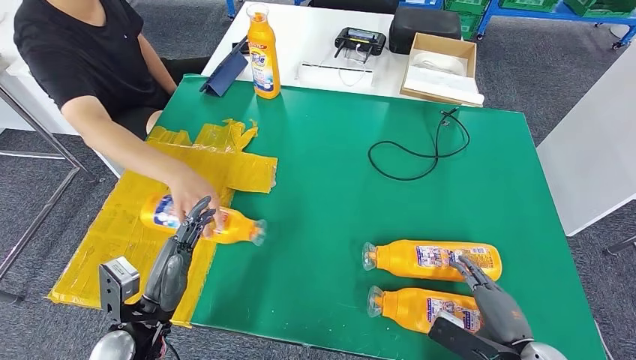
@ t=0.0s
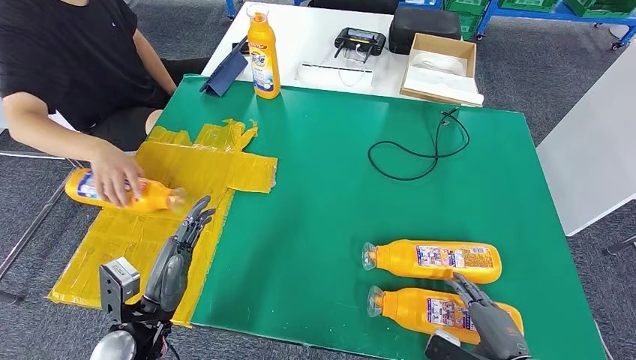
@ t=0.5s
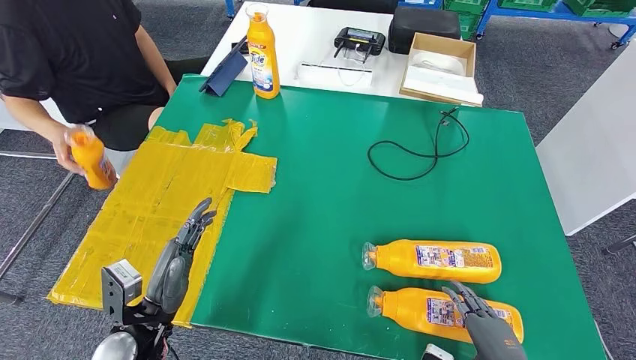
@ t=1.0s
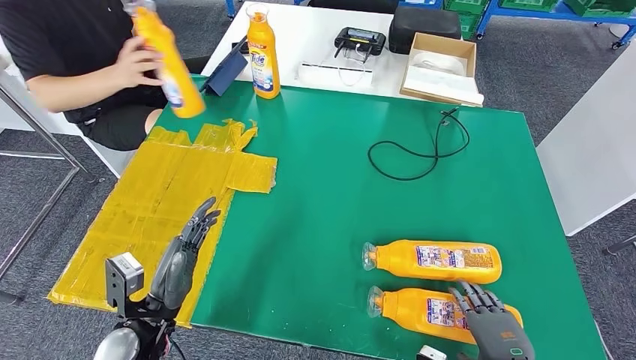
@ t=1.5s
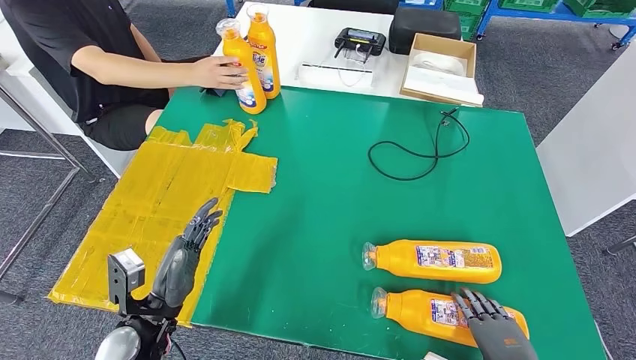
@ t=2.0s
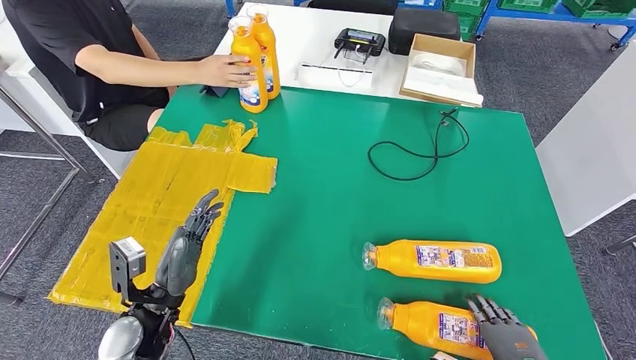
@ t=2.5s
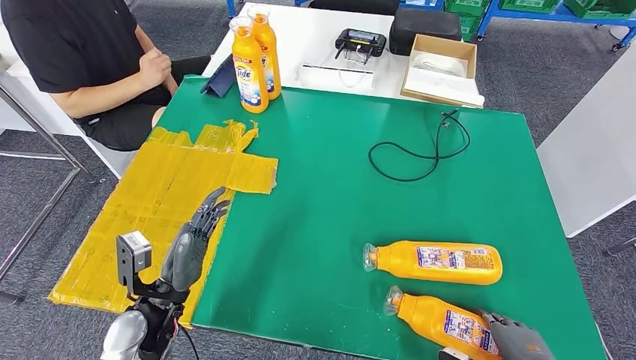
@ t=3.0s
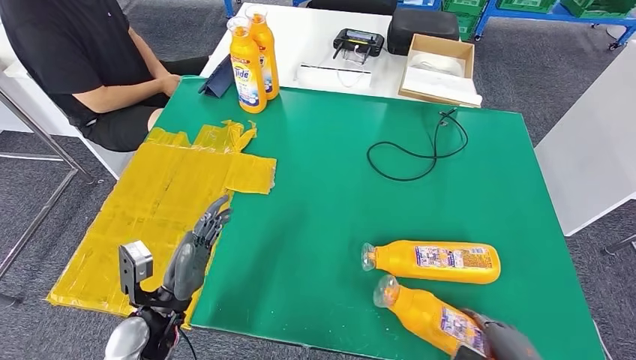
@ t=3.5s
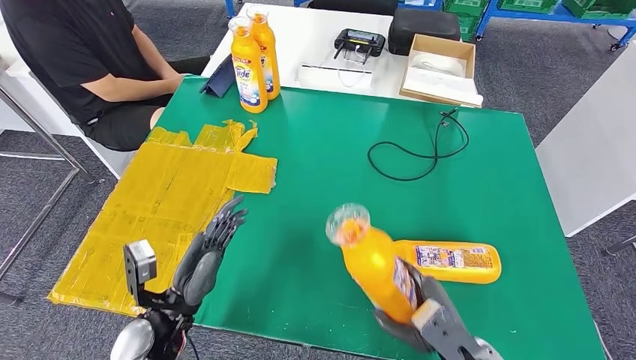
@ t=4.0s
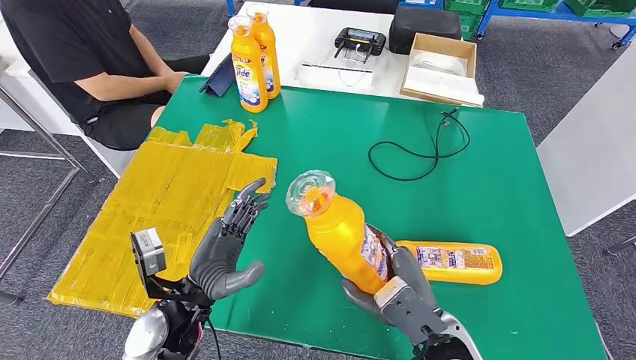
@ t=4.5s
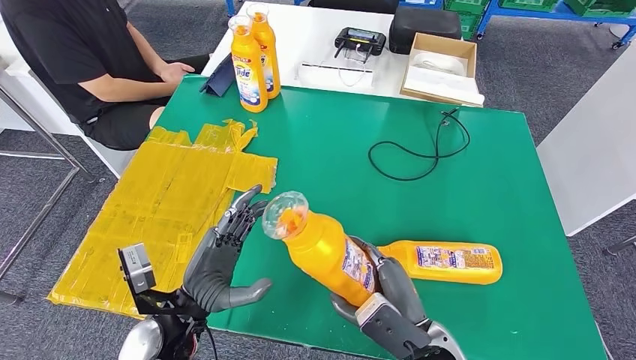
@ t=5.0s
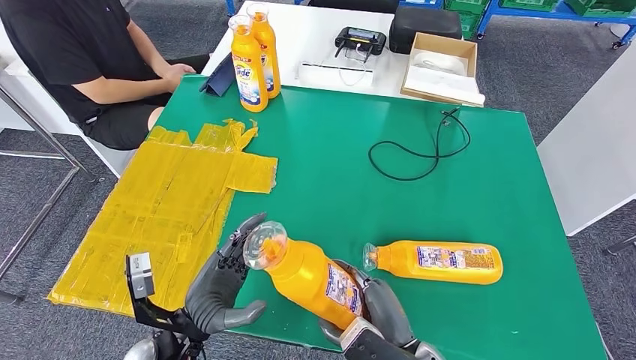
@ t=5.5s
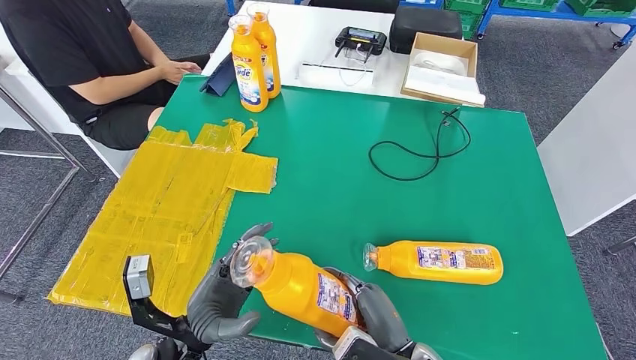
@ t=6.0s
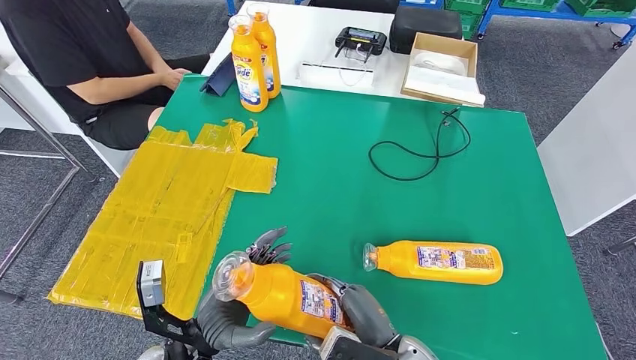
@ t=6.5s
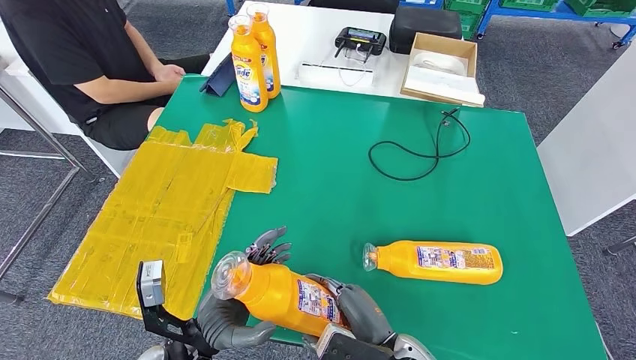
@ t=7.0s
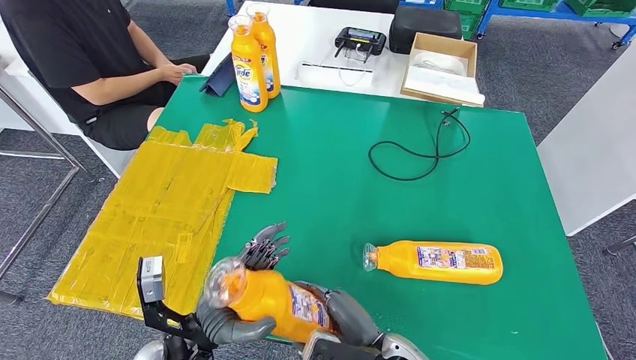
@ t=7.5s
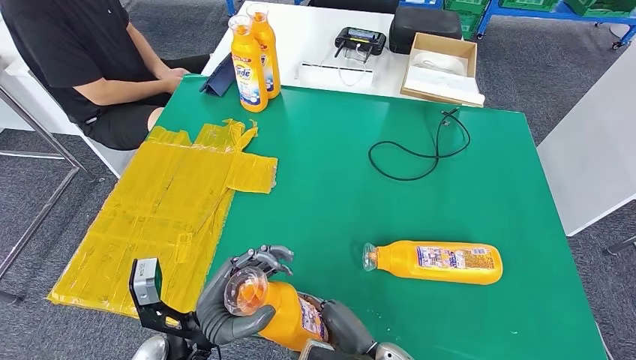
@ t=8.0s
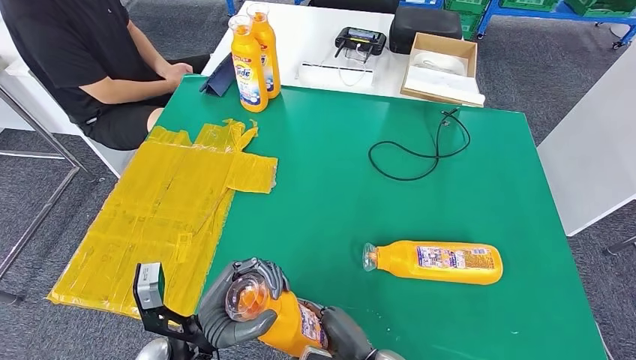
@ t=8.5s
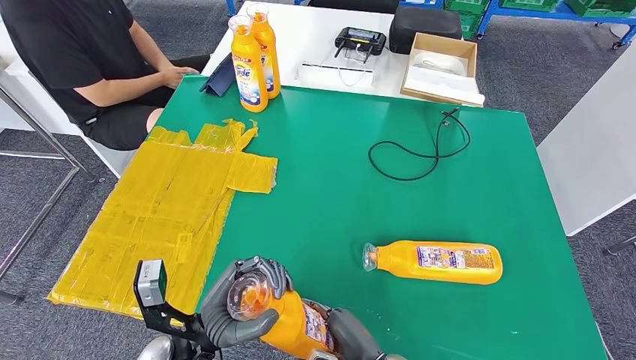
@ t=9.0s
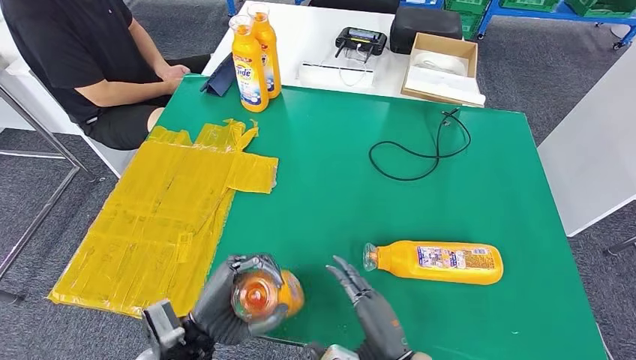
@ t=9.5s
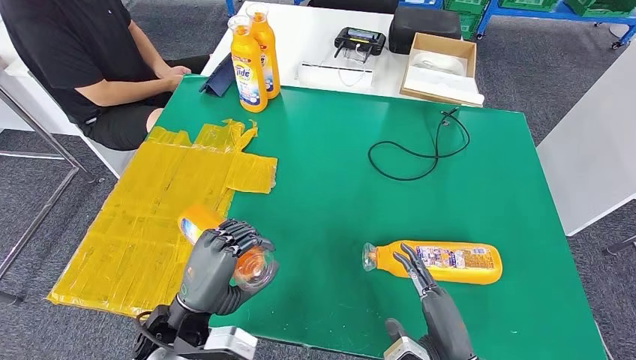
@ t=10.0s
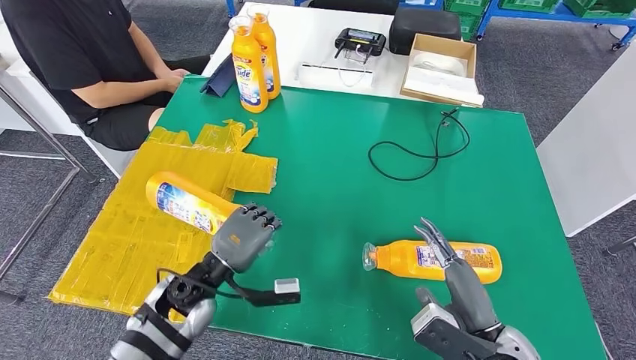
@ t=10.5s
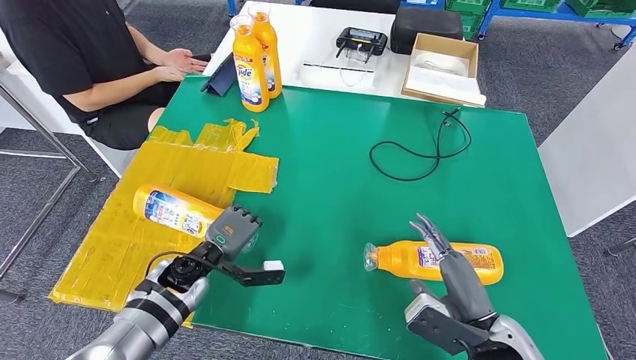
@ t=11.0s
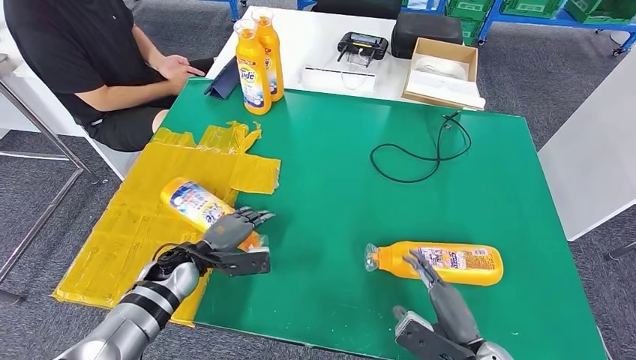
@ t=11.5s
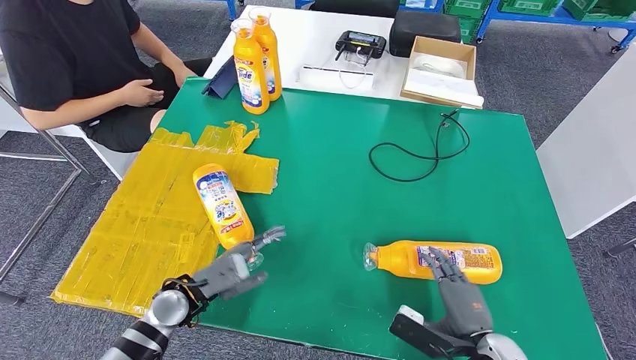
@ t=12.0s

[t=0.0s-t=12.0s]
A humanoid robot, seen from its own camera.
Step, t=0.5s to t=7.0s: Pick up the bottle from the table.
t=2.0s to t=4.0s: The right hand moves to the left, about 10 cm.
t=4.0s to t=6.0s: The right hand moves to the left, approximately 10 cm. Meanwhile the left hand changes place by about 5 cm.
t=6.0s to t=8.0s: The right hand changes place by about 5 cm.
t=8.0s to t=10.0s: The right hand is displaced to the right and upward by about 10 cm.

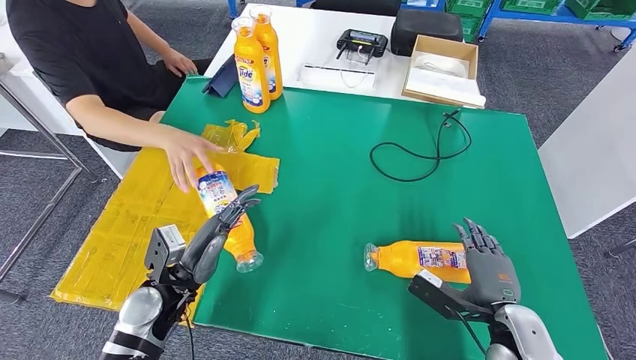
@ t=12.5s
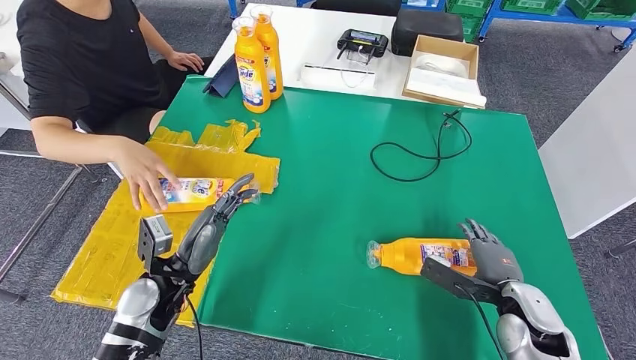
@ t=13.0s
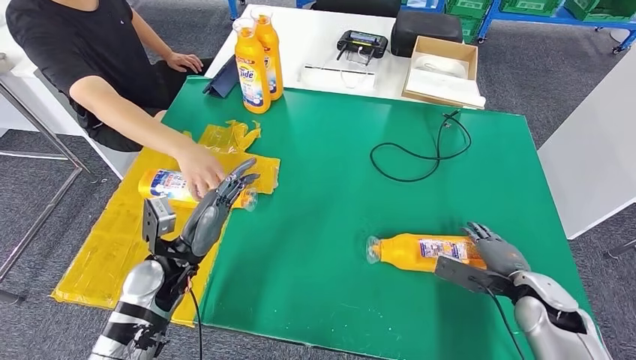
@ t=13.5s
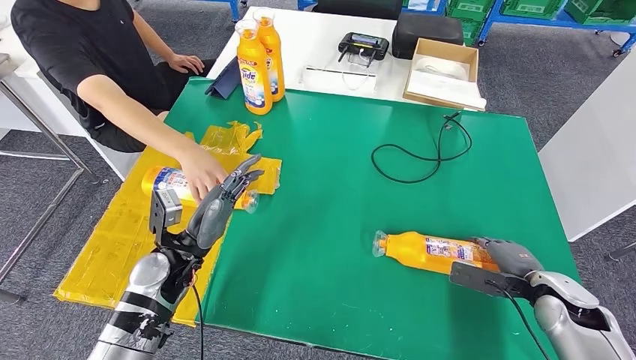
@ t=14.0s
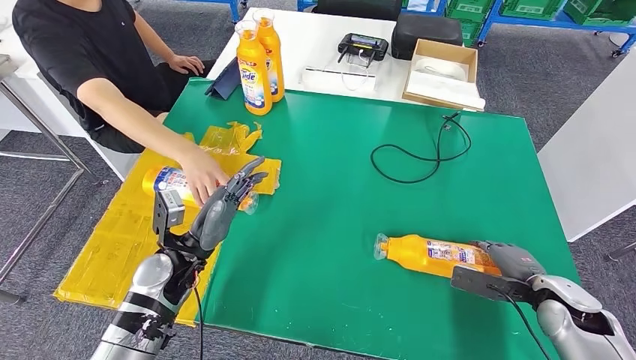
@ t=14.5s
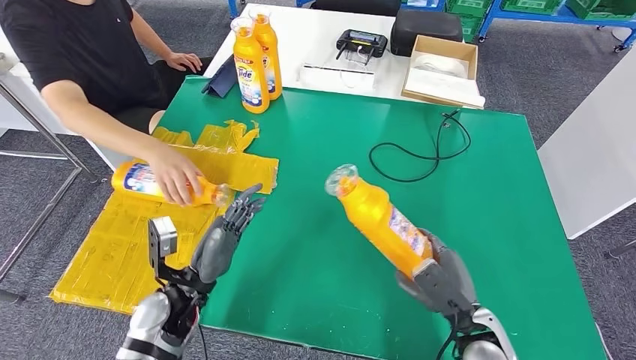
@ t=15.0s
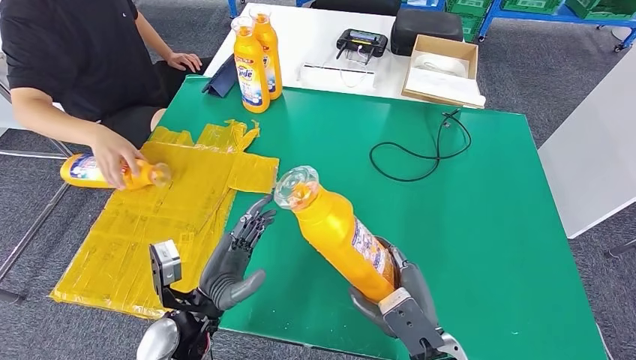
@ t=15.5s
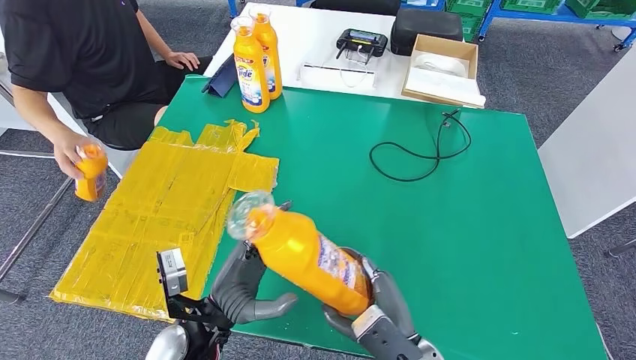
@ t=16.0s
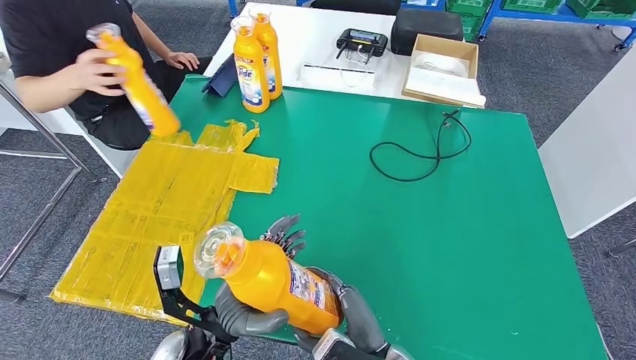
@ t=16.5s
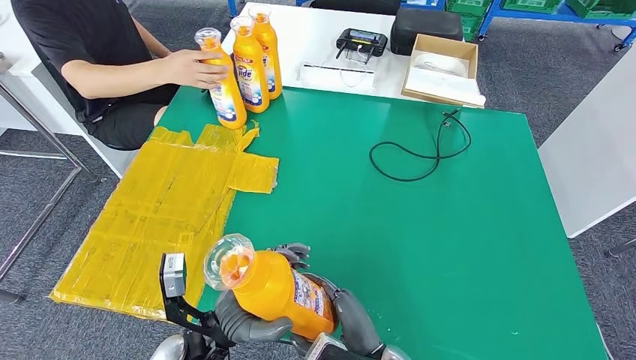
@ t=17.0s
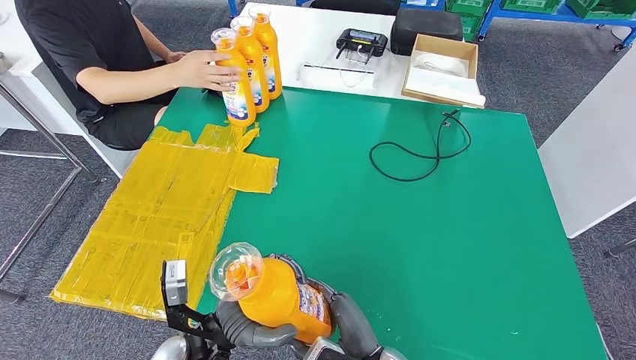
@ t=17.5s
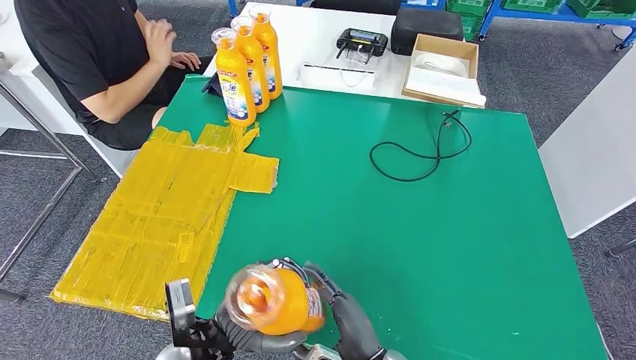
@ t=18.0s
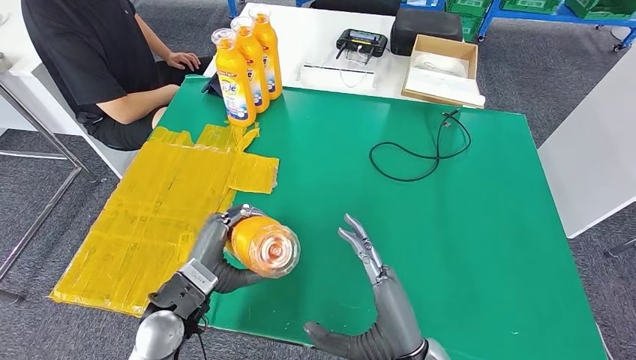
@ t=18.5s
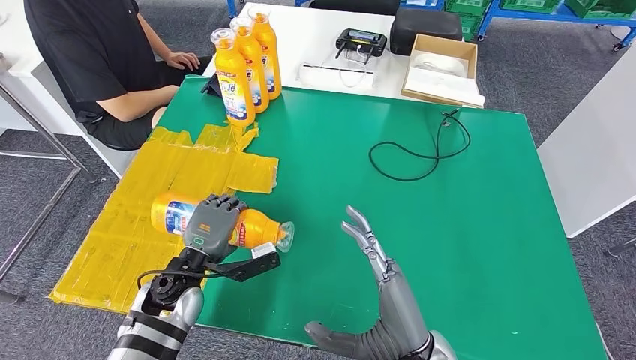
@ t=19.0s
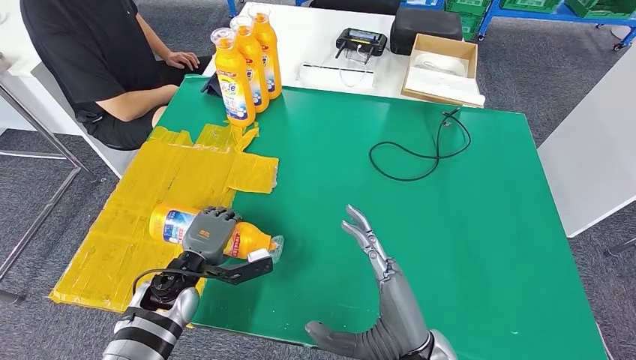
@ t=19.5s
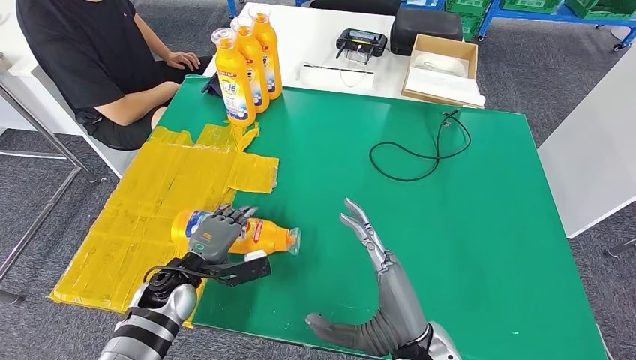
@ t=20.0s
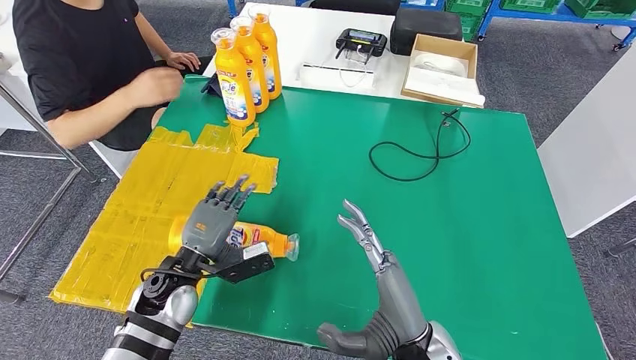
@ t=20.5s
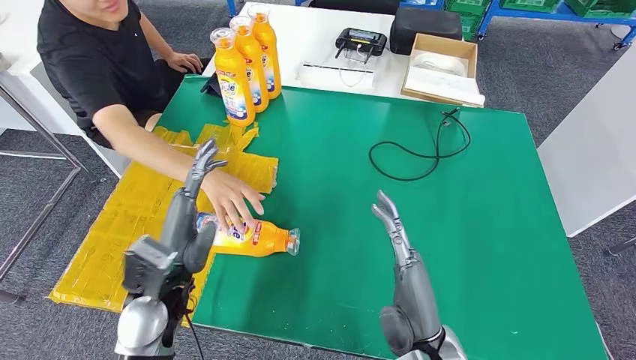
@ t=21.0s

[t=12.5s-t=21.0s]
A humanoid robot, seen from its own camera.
Step, t=14.0s to t=17.5s: Pick up the bottle from the table.
Step, t=18.0s to t=21.0s: Flip the bottle to face forward.
t=19.0s to t=21.0s: The left hand goes some 10 cm upward.
